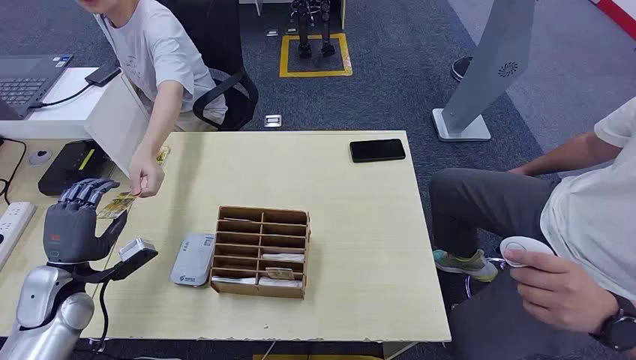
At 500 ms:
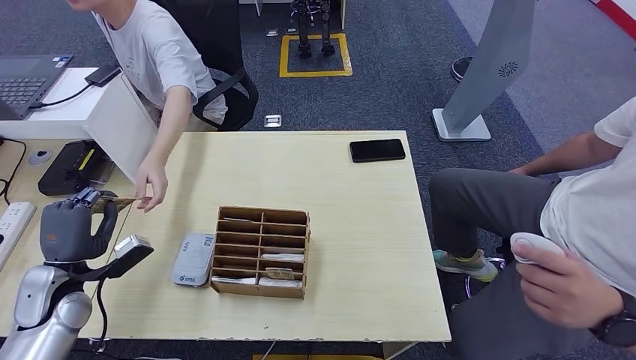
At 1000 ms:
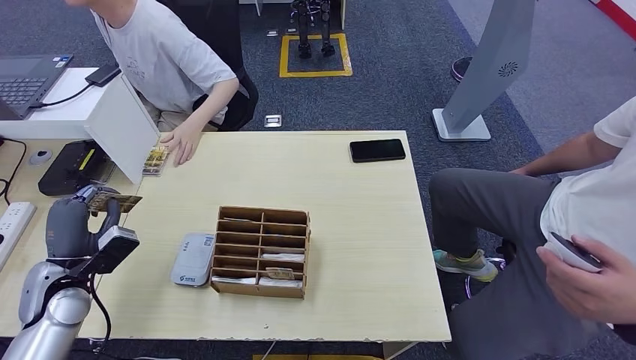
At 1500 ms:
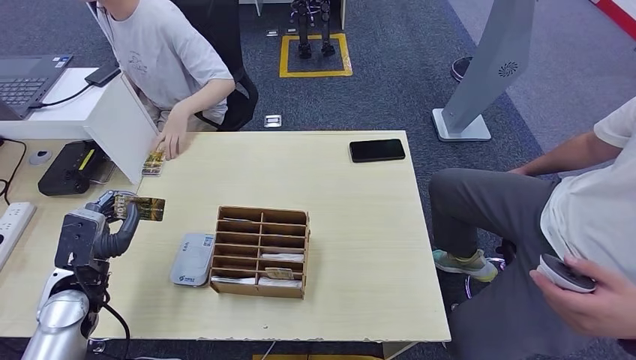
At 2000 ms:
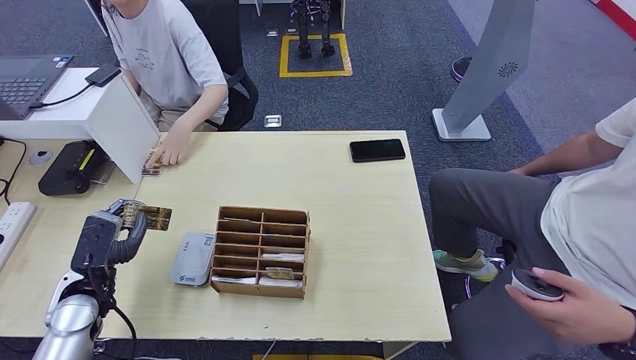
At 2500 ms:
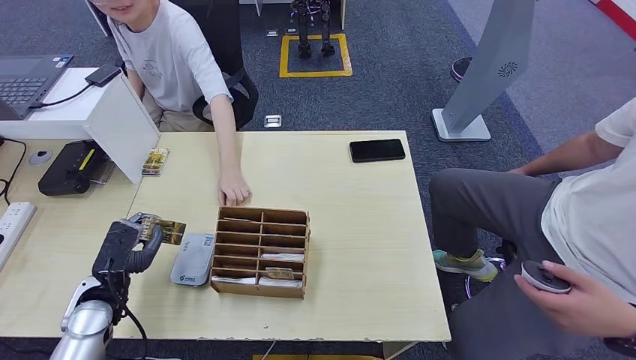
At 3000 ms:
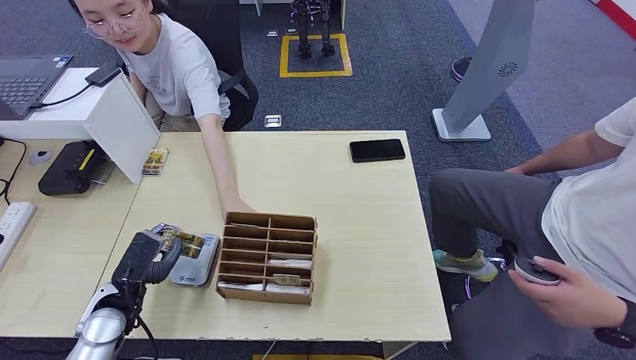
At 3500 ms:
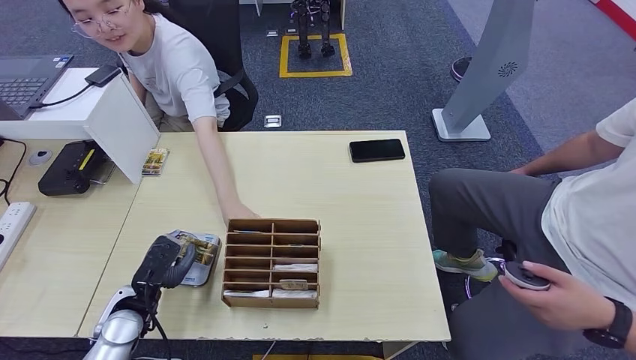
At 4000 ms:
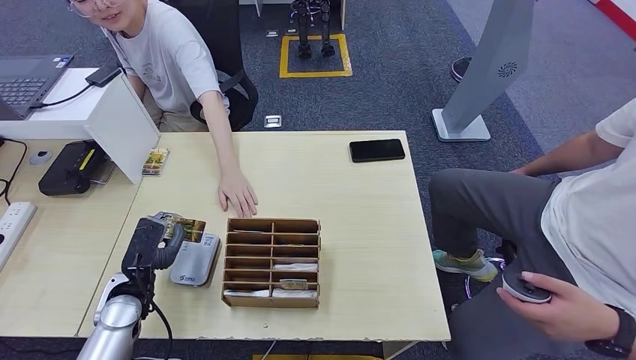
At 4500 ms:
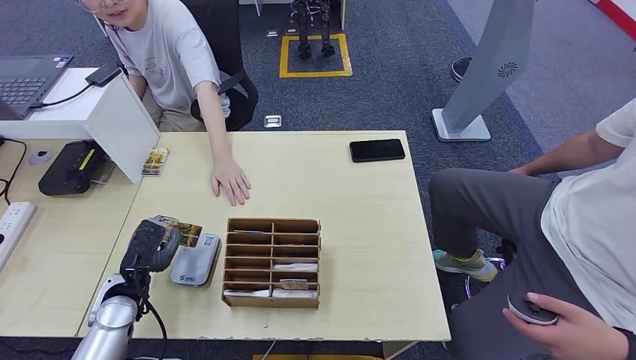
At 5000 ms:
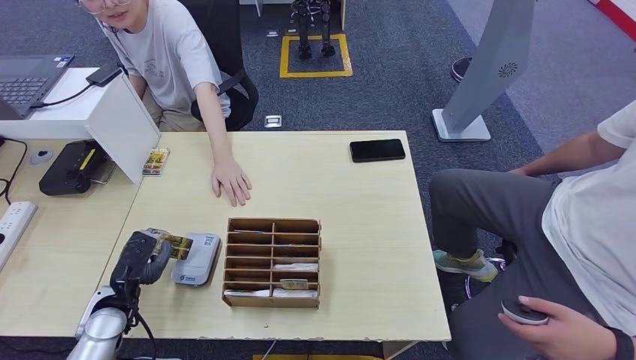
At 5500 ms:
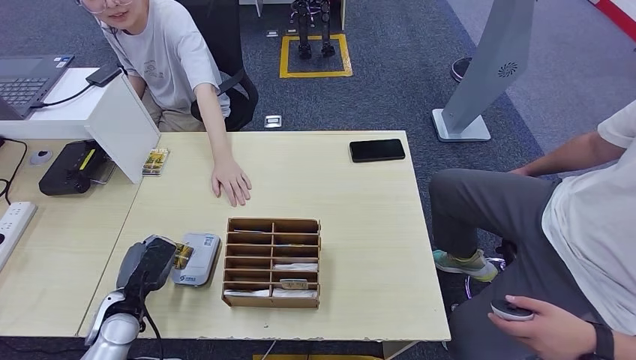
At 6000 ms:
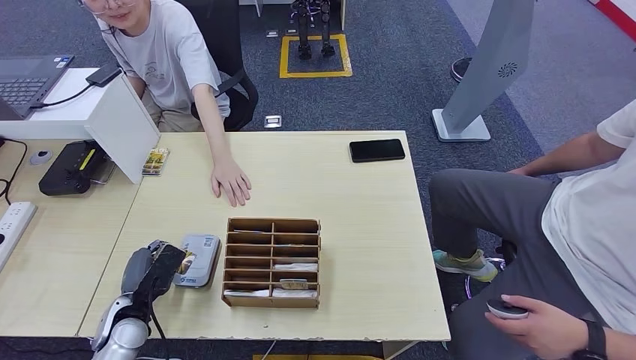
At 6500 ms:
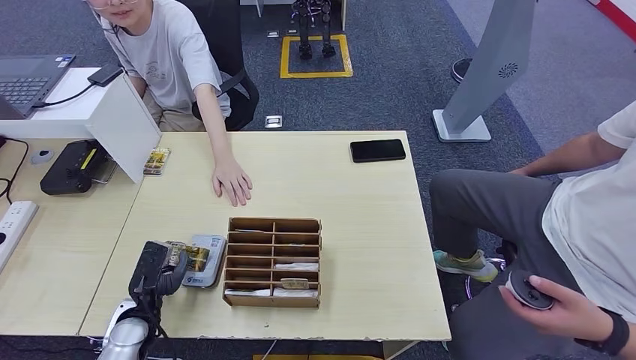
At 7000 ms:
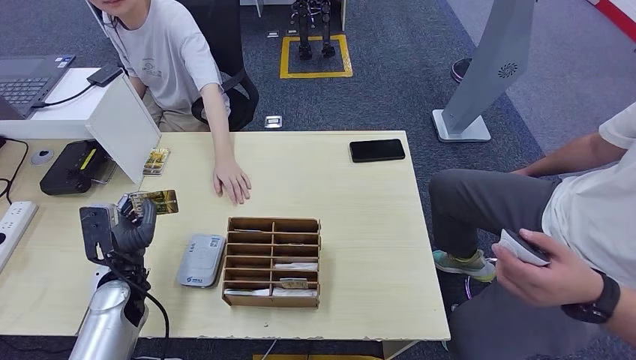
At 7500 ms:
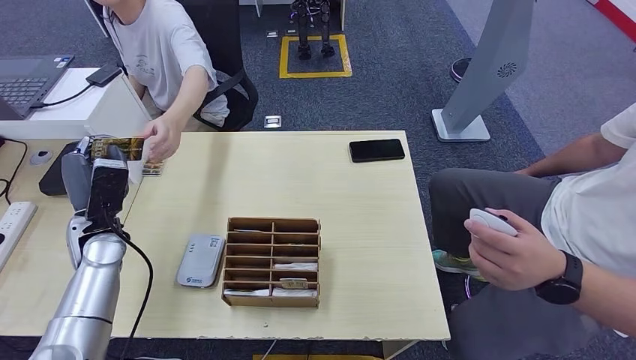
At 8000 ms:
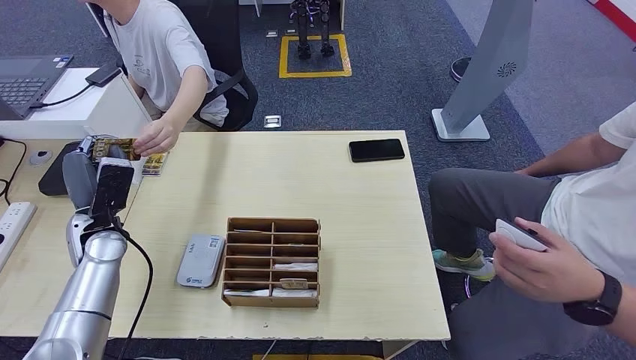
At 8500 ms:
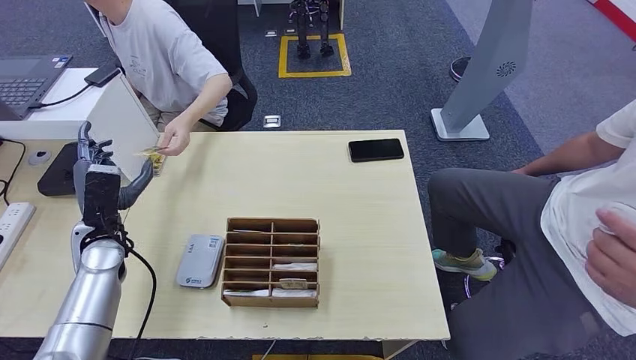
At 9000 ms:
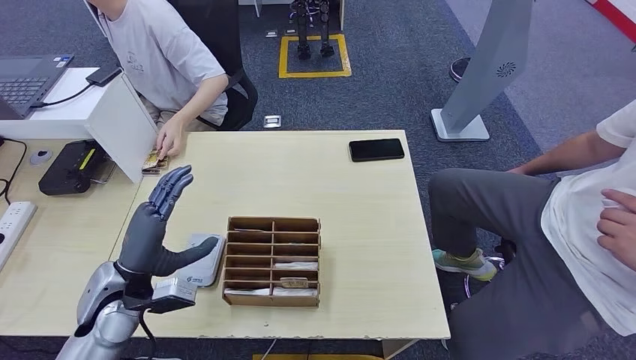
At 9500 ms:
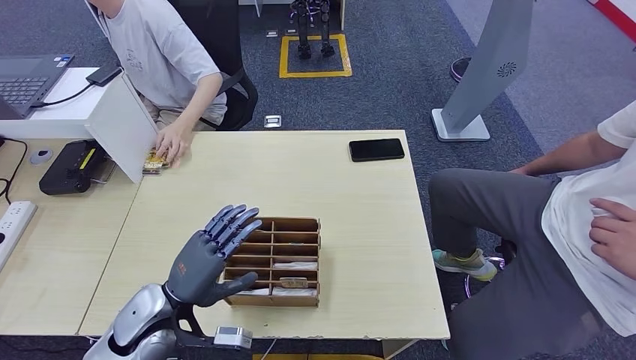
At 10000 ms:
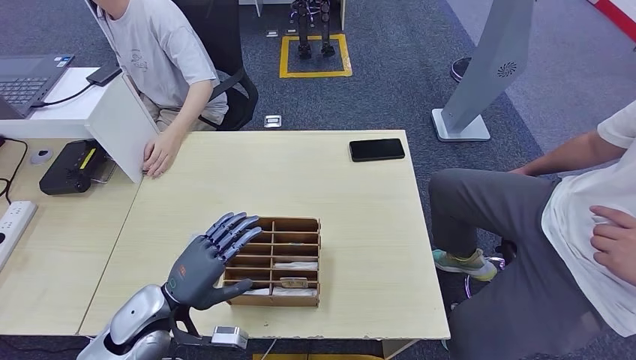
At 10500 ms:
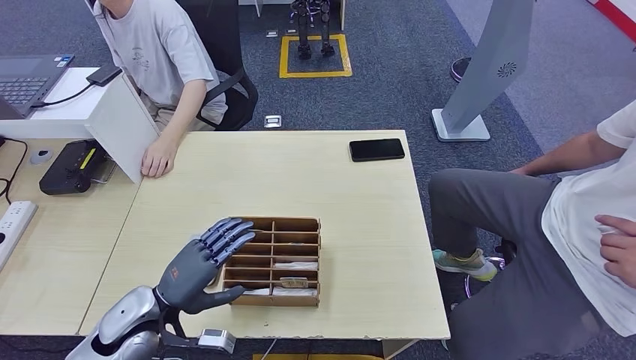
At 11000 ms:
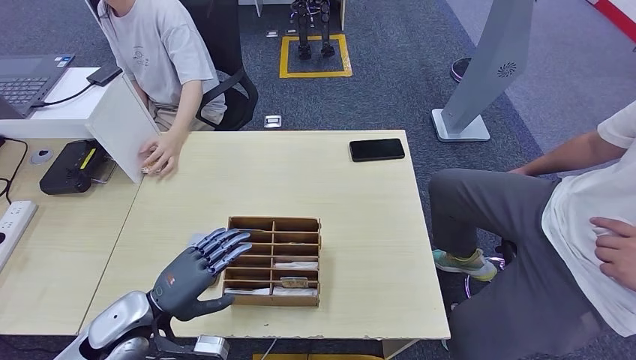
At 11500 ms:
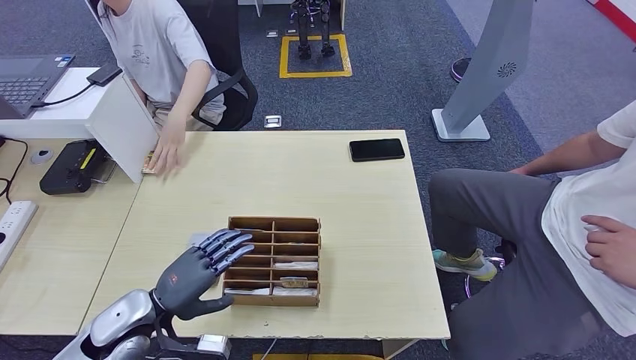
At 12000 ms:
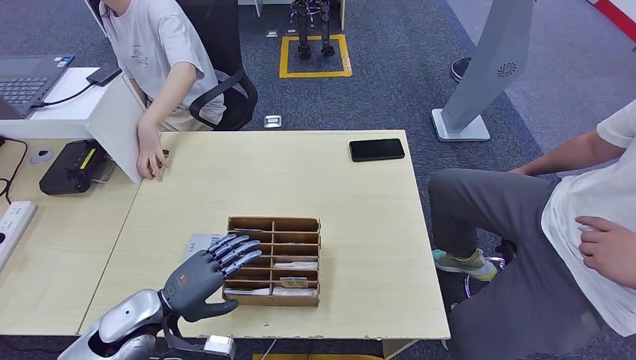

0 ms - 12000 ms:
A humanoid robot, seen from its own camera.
Step, 0 ms - 500 ms: Take the ID card from the person's hand.
Step, 1000 ms - 6000 ms: Place the ID card on the card reader.
Step, 7500 ms - 8000 ms: Hand the ID card to the person.
2000 ms - 4000 ms: The left hand changes place by about 5 cm.
4000 ms - 6000 ms: The left hand ends up some 5 cm from where it was.
6000 ms - 8000 ms: The left hand heads upward and forward, covering approximately 20 cm.
8000 ms - 10000 ms: The left hand moves backward, to the right and downward, about 20 cm.
10000 ms - 12000 ms: There are only small adjustments of the hands.

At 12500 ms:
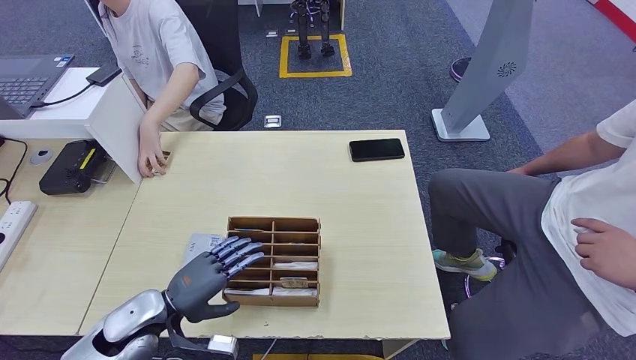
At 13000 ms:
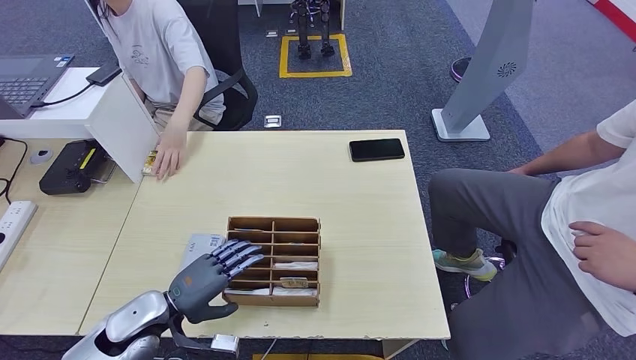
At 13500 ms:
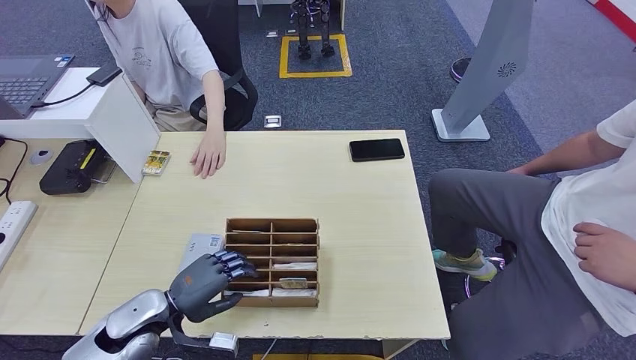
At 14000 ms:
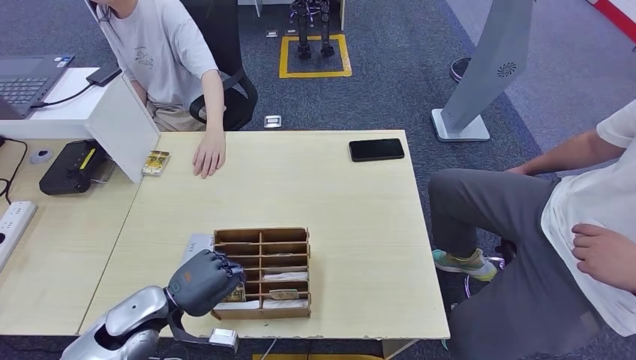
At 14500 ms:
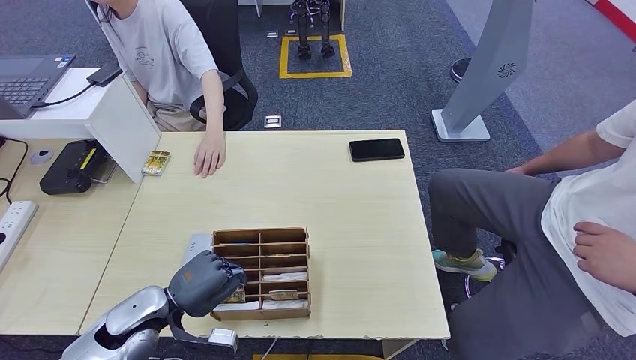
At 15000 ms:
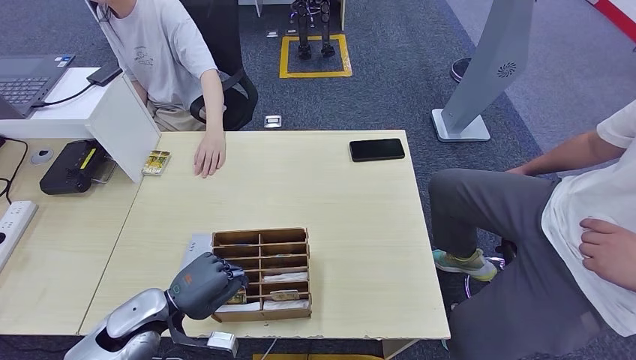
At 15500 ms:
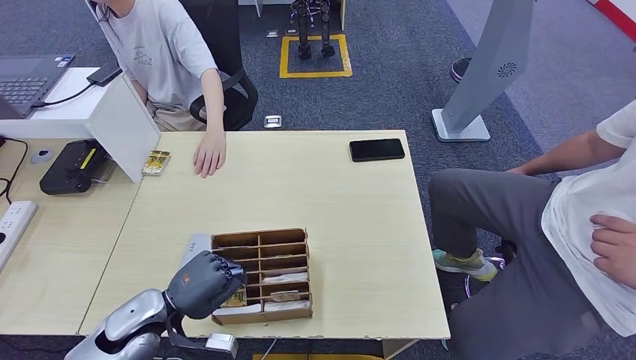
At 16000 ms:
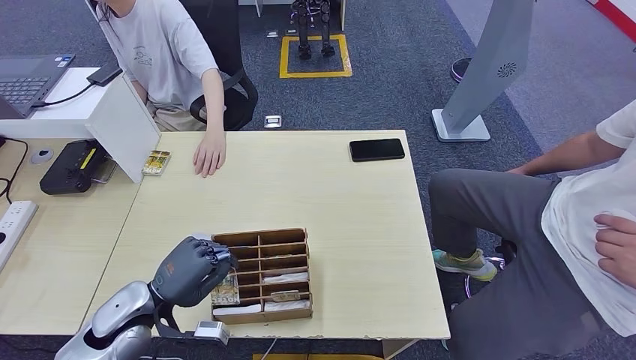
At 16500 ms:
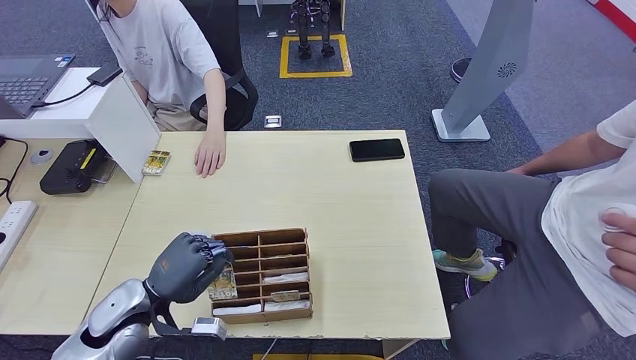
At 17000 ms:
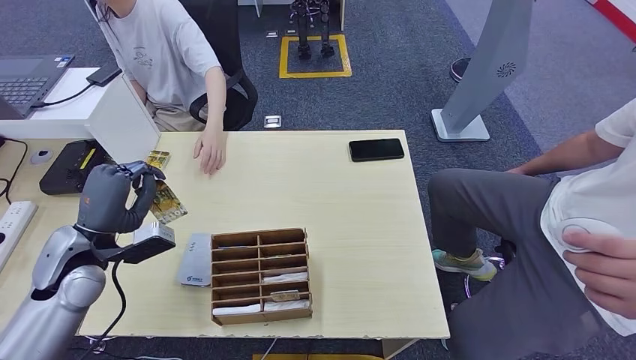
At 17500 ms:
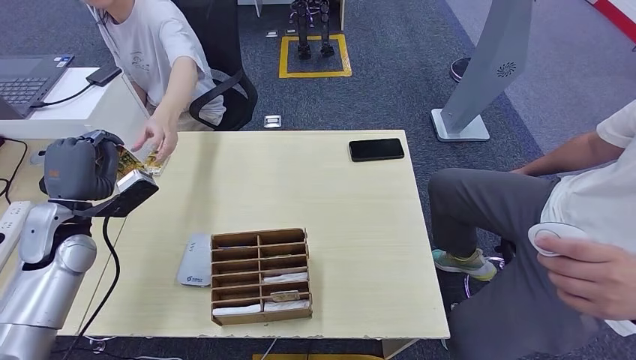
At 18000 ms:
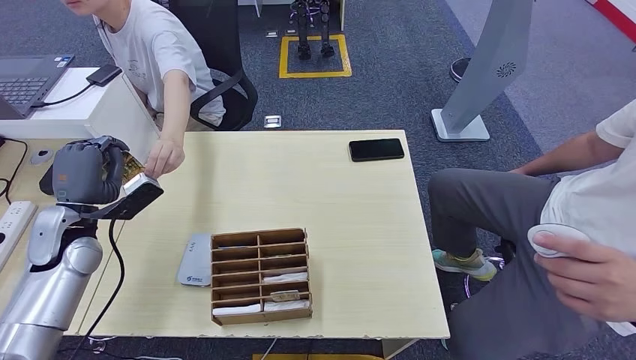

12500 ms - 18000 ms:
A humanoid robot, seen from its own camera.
Step, 14000 ms - 16500 ms: Pick up the room key from the key card box.
Step, 17500 ms - 18000 ms: Hand the room key to the person.
12500 ms - 14500 ms: Both hands stay put.
14500 ms - 16000 ms: There are only small adjustments of the hands.
16000 ms - 18000 ms: The left hand travels forward, to the left and upward by approximately 15 cm.
